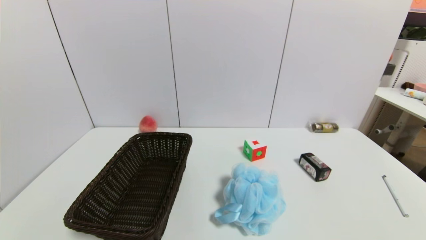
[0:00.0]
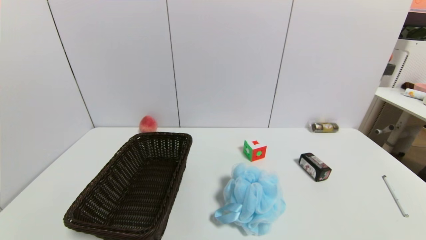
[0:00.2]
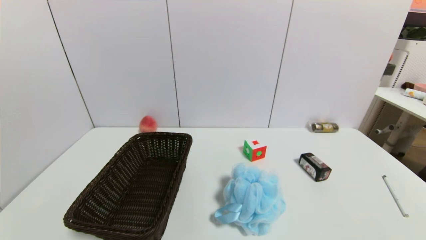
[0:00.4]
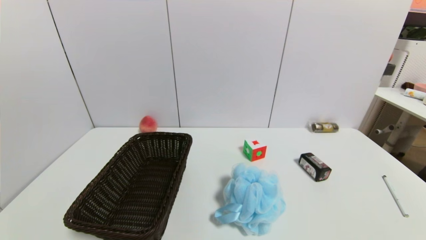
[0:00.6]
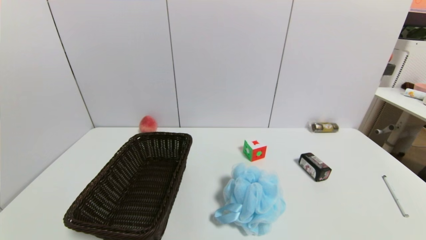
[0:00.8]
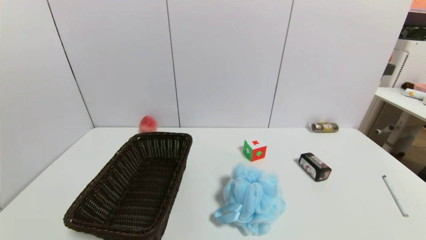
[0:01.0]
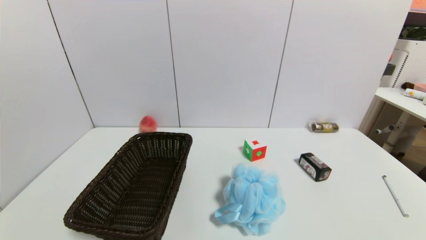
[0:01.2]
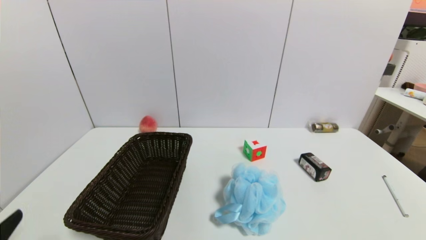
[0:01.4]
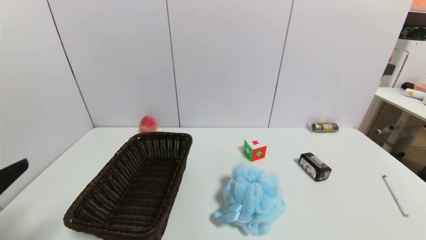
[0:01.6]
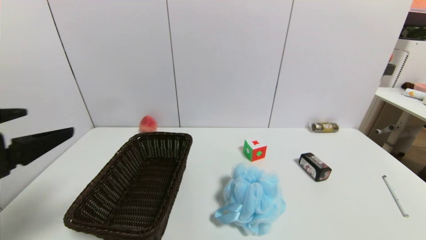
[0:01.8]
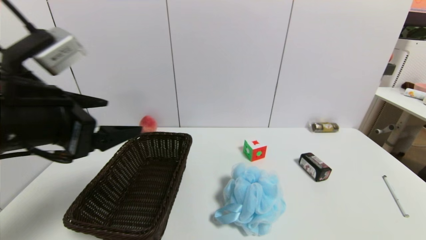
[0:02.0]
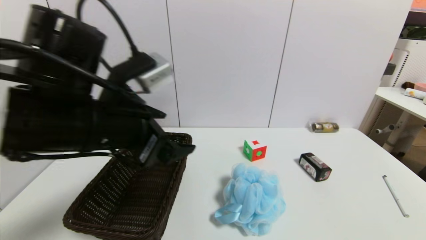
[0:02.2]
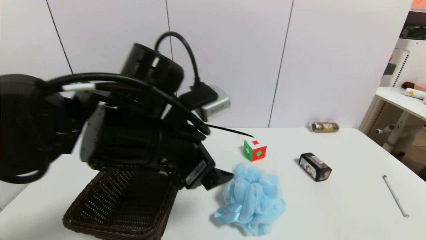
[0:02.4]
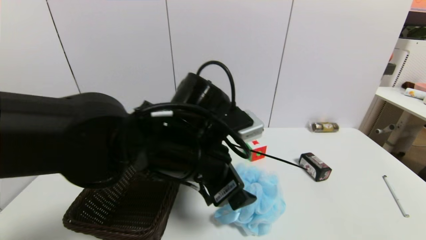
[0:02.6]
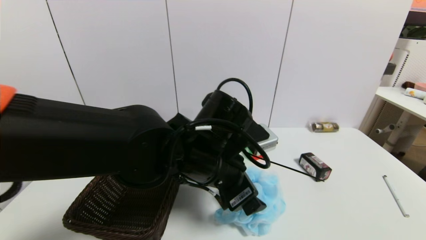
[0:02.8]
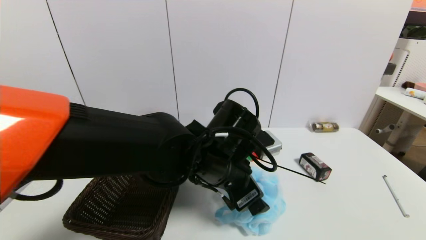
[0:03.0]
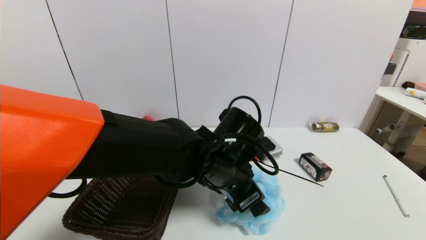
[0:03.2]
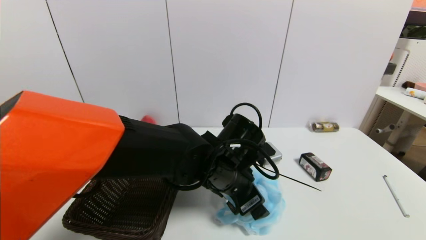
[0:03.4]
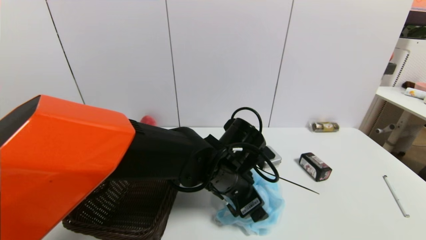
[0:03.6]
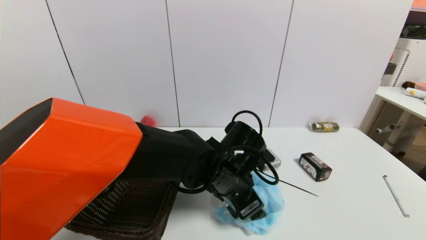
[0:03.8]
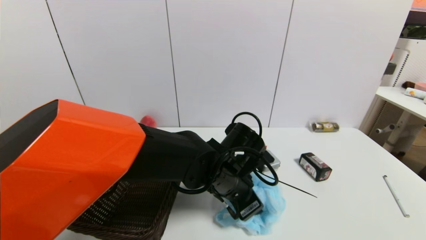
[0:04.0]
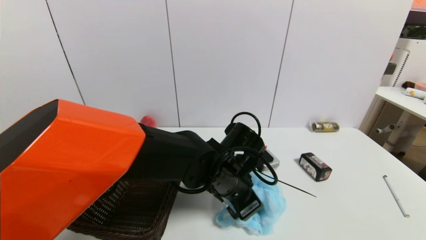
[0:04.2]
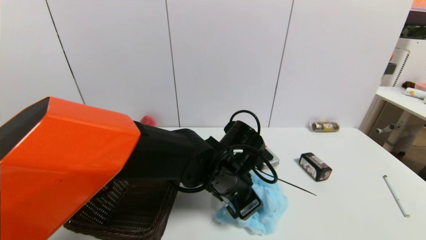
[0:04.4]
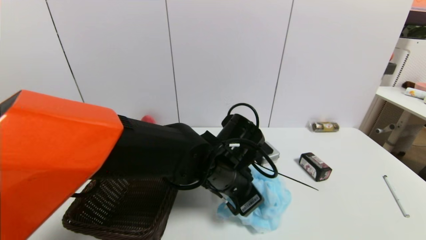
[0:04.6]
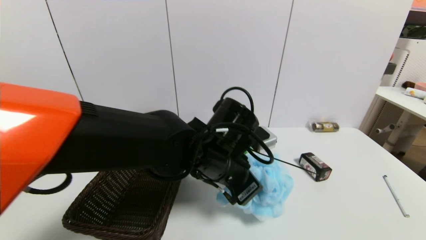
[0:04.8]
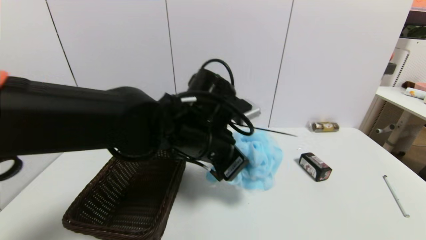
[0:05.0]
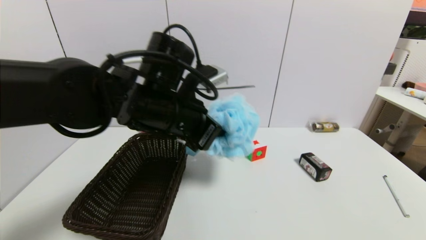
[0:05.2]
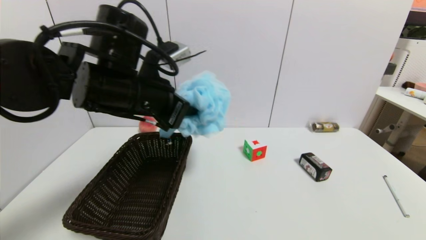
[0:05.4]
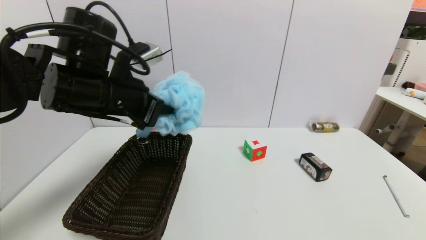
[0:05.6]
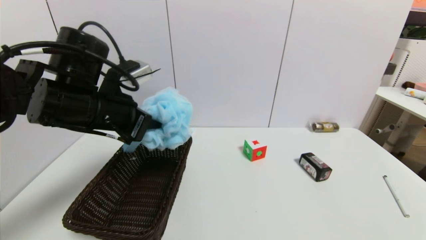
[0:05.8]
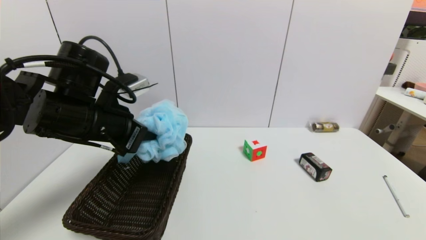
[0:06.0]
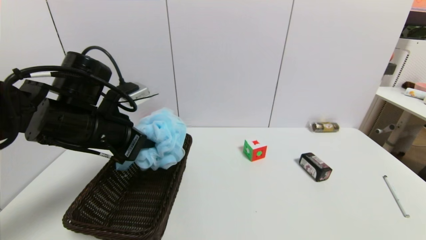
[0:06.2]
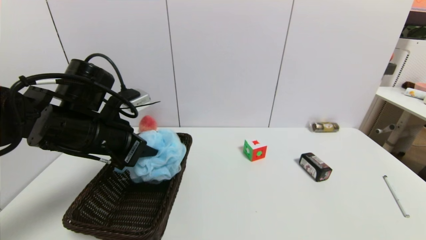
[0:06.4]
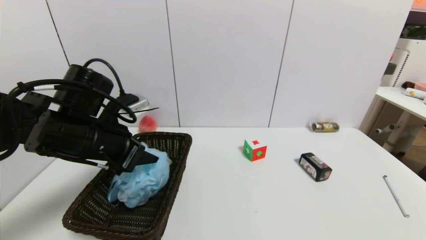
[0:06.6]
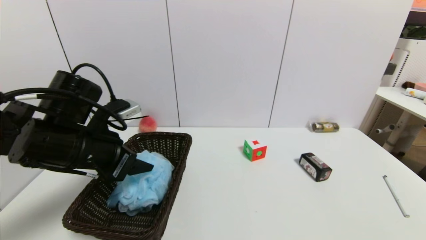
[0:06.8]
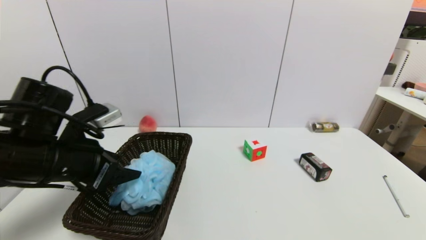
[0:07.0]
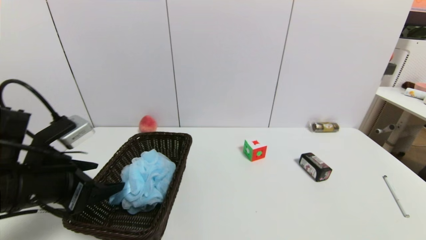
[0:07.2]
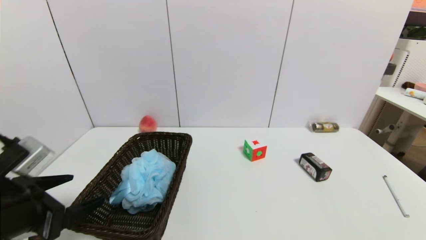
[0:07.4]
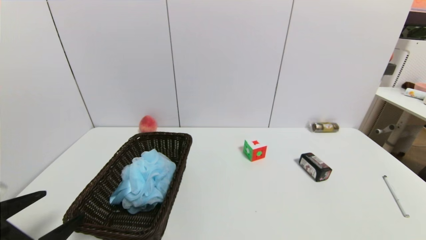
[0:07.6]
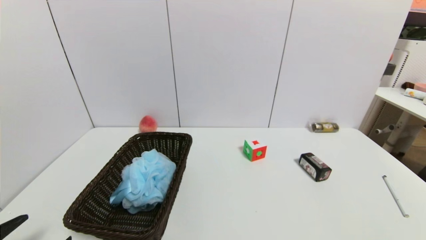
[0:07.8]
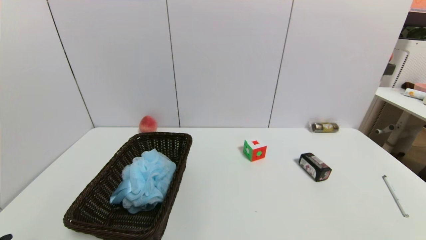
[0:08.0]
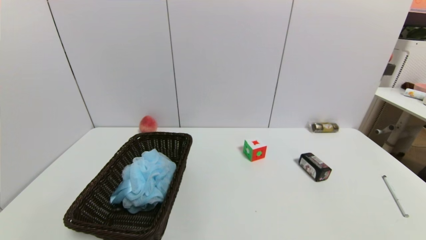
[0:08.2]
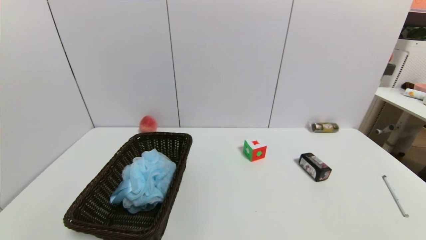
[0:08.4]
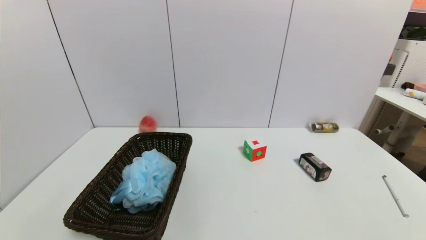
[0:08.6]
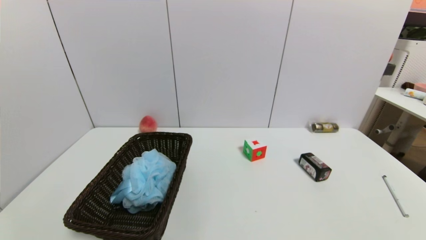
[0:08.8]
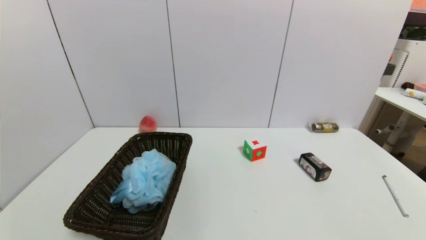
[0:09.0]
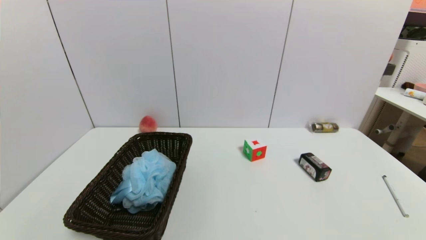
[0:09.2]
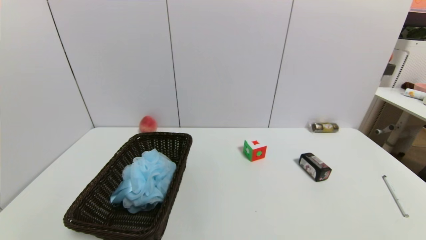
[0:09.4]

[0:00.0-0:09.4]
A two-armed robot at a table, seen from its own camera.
Task of the whole recording: use a gripper to pick the target object and place on the brown basket.
Step, 0:00.0 to 0:04.2: Grasp the shower sphere with the left gripper.
Step, 0:04.4 to 0:06.8: Place the shower sphere into the basket with the left gripper.
0:00.0 to 0:01.6: The left gripper travels upward and forward by roughly 20 cm.
0:01.6 to 0:03.2: The left gripper shifts some 35 cm to the right and forward.
0:03.2 to 0:04.8: The left gripper closes up.
0:04.8 to 0:06.2: The left gripper travels to the left by some 20 cm.
0:06.2 to 0:07.8: The left gripper moves backward, downward and to the left, about 25 cm, and opens up.
0:07.8 to 0:09.4: The left gripper ends up about 5 cm from where it was.

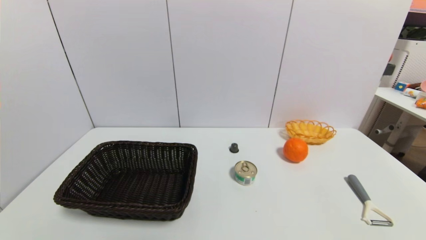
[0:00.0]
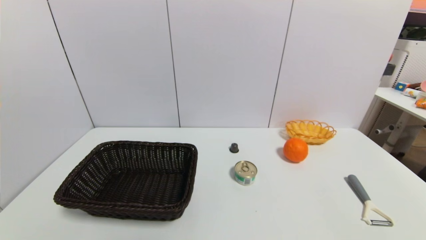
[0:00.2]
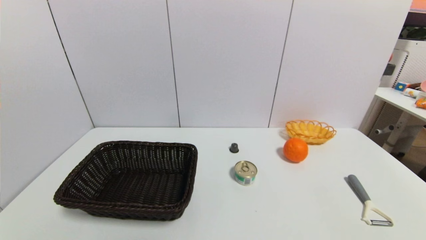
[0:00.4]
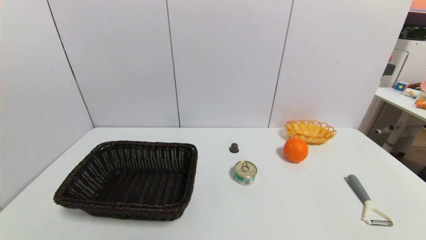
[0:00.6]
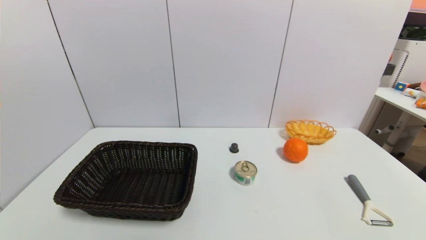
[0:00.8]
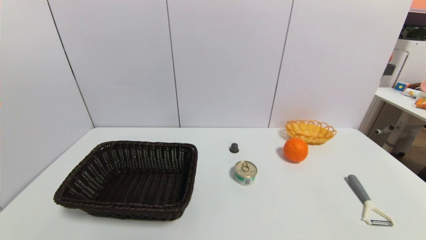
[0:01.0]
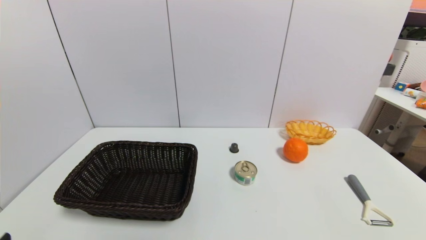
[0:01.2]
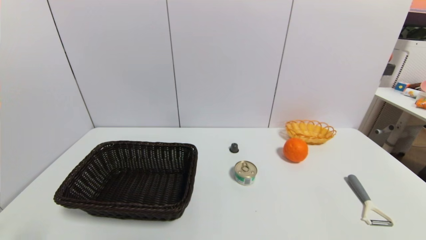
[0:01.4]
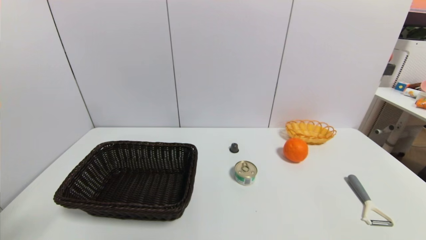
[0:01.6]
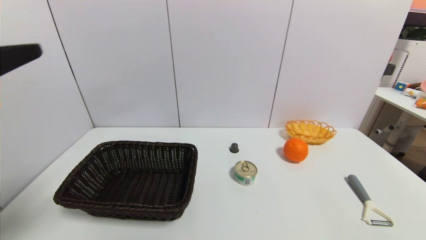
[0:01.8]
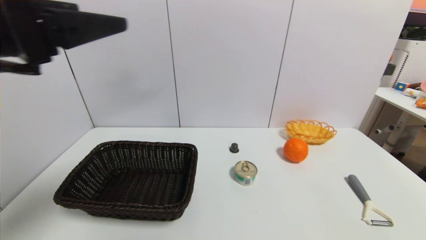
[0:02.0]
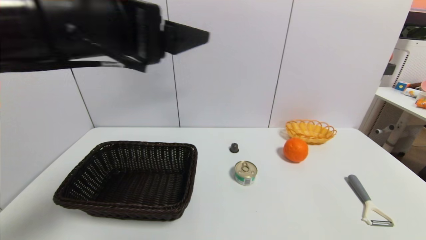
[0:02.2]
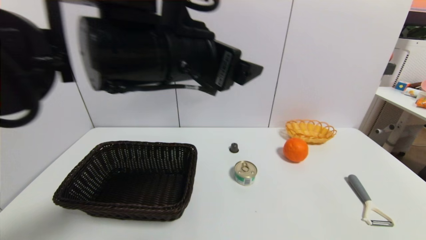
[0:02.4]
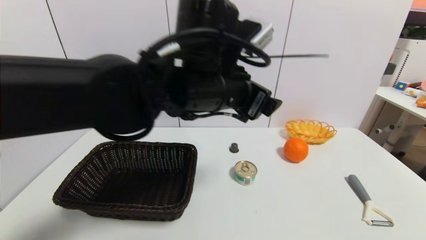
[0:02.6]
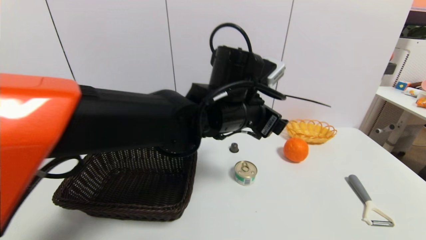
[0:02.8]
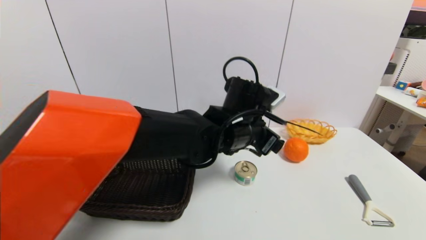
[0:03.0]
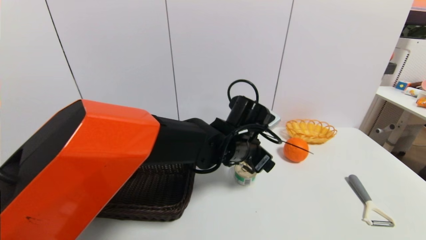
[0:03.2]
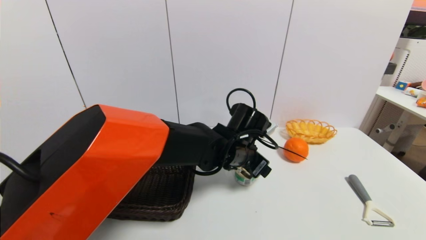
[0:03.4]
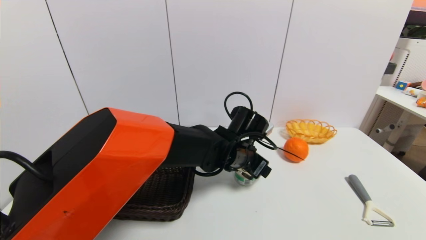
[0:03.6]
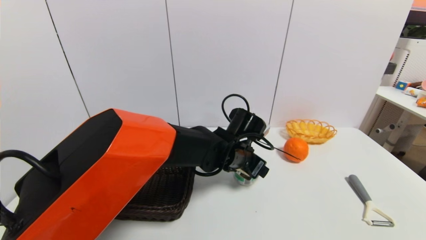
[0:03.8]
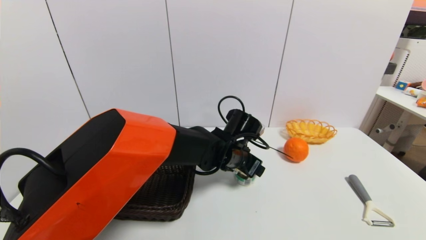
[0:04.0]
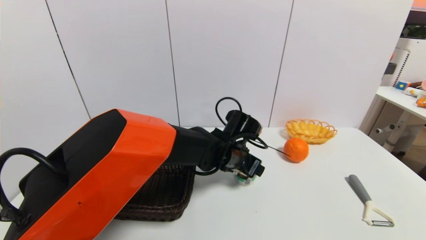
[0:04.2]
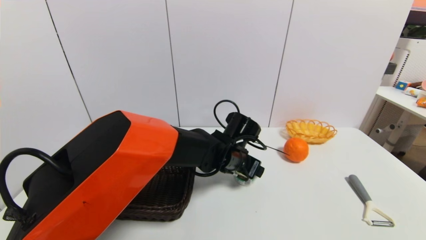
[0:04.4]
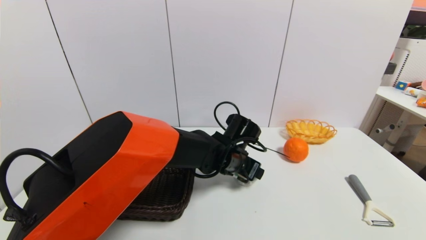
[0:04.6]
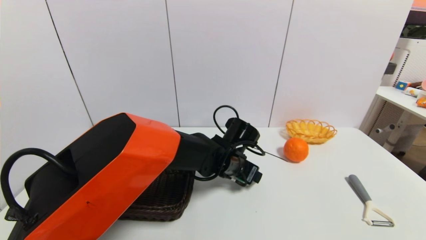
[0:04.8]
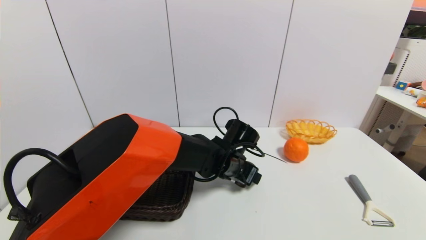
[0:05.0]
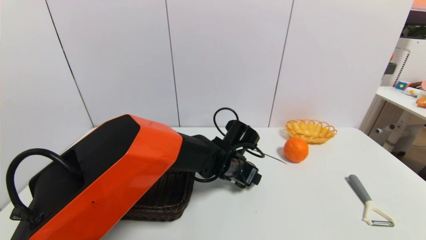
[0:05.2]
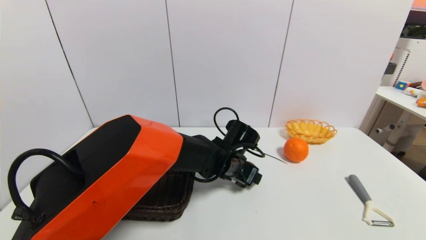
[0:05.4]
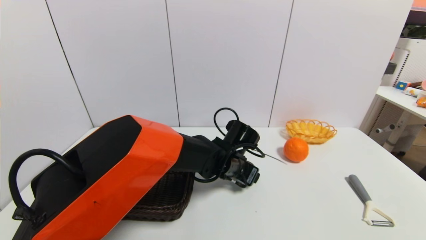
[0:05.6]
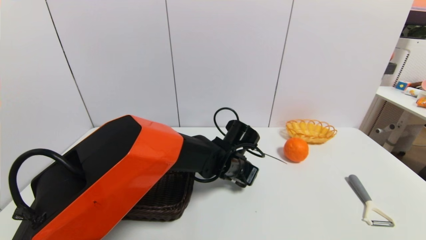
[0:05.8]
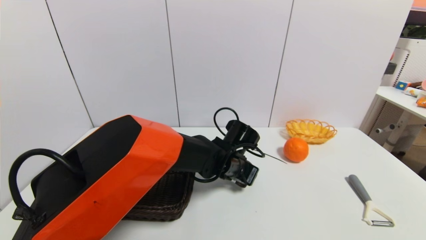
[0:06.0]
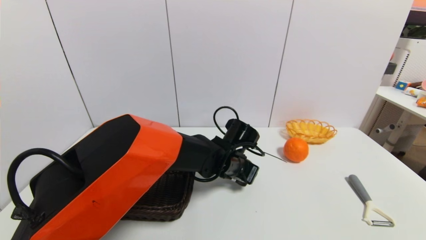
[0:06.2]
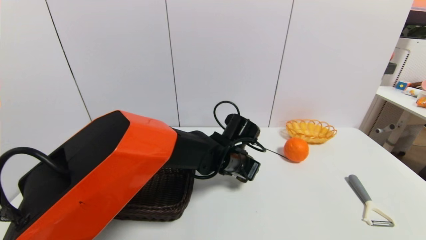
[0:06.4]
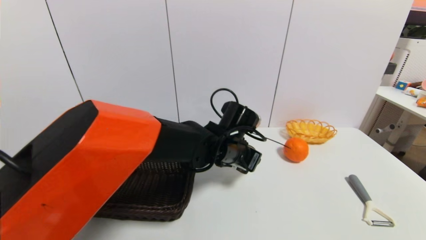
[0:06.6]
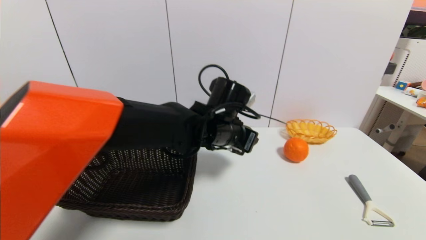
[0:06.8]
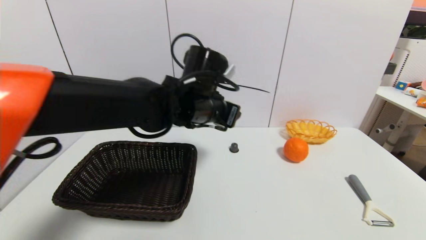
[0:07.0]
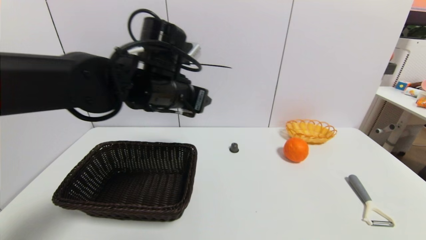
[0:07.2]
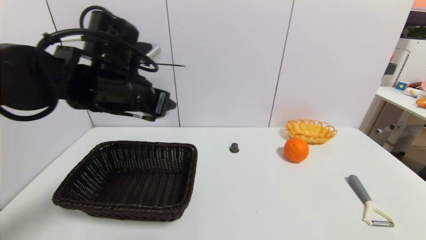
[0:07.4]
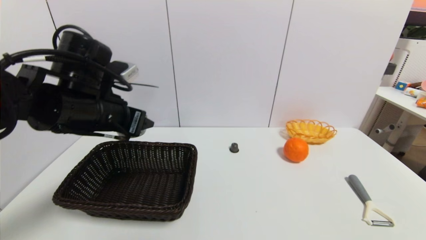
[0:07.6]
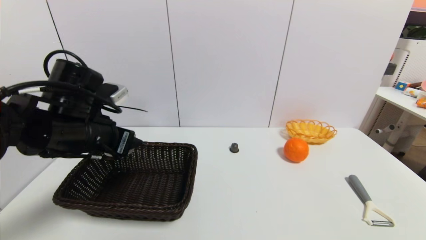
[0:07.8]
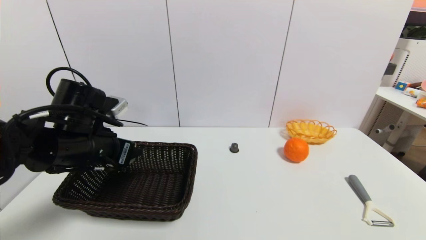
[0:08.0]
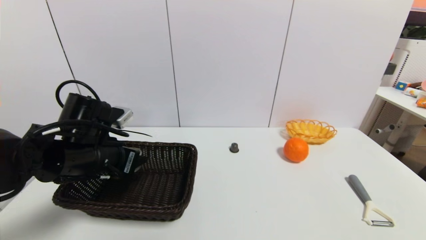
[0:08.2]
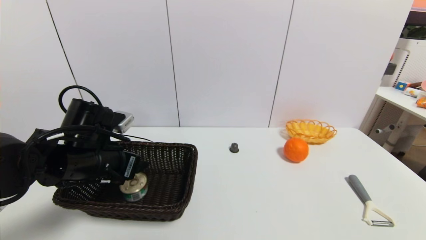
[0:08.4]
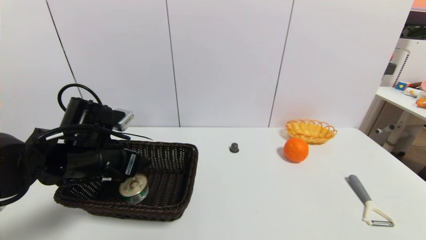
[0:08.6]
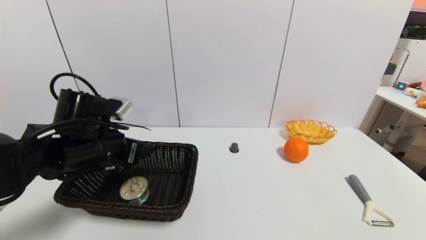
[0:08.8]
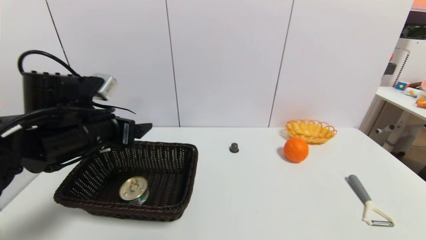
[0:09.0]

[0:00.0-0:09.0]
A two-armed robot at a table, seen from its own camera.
Task of the whole recording: use a gripper to pick the target object and place on the brown basket.
Step, 0:00.0 to 0:05.8: Grasp the tin with the left gripper.
Step, 0:06.0 to 0:08.8: Place the tin into the basket with the left gripper.
0:01.6 to 0:03.0: The left gripper moves to the right and forward, approximately 40 cm.
0:03.0 to 0:04.4: The left gripper moves downward, some 10 cm.
0:04.4 to 0:06.0: The left gripper closes up.
0:06.0 to 0:07.6: The left gripper goes some 30 cm to the left and upward.
0:07.6 to 0:09.0: The left gripper travels downward and back again, approximately 10 cm each way, and opens up.
